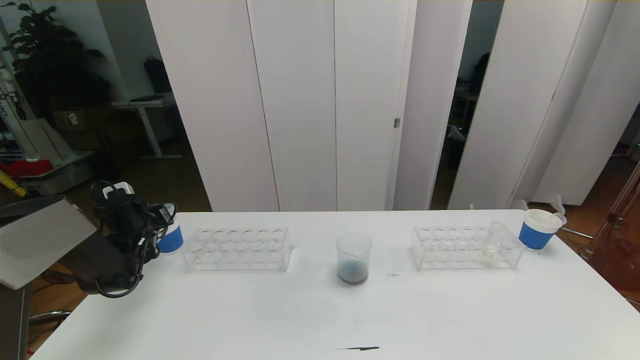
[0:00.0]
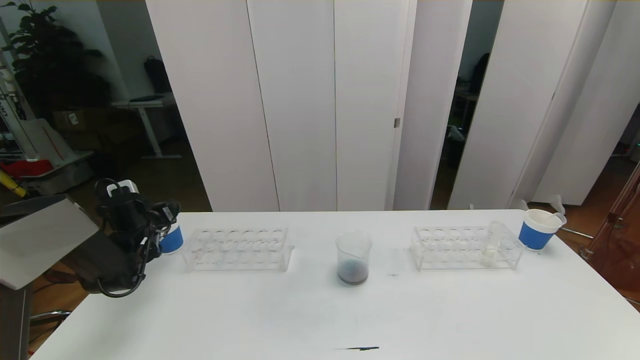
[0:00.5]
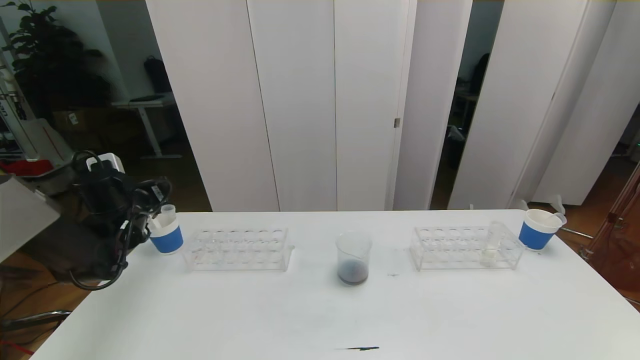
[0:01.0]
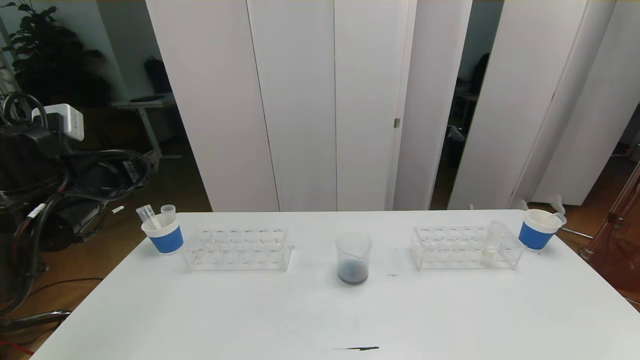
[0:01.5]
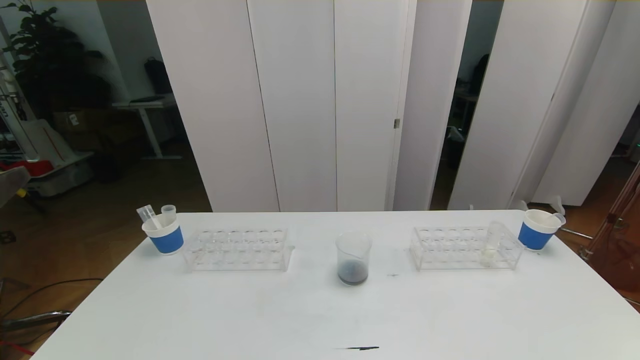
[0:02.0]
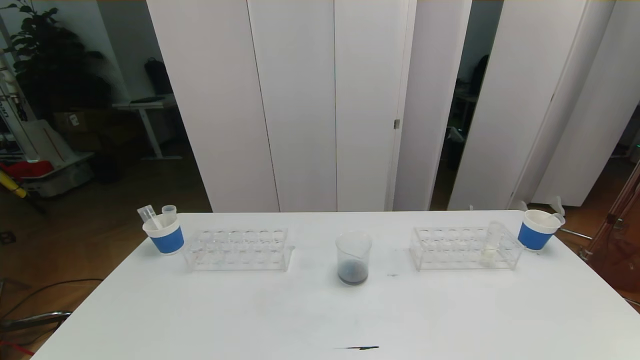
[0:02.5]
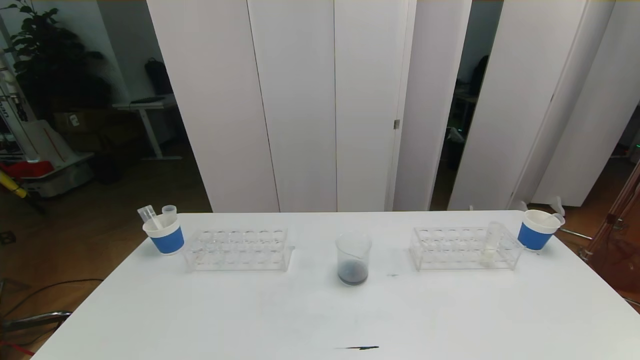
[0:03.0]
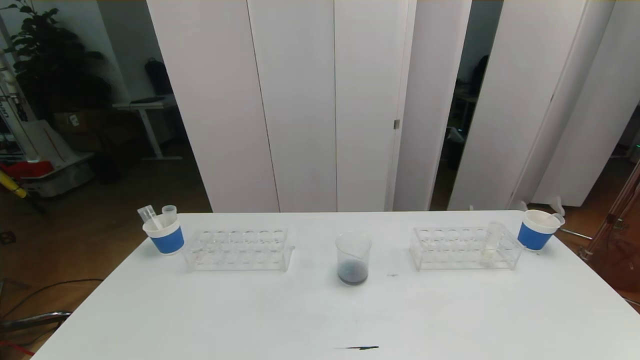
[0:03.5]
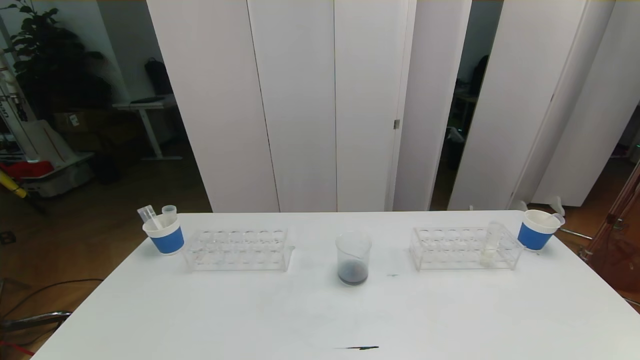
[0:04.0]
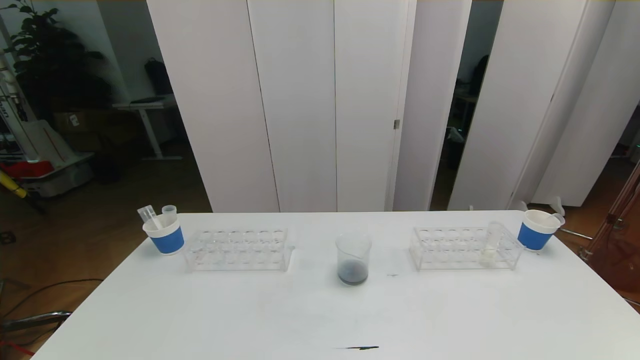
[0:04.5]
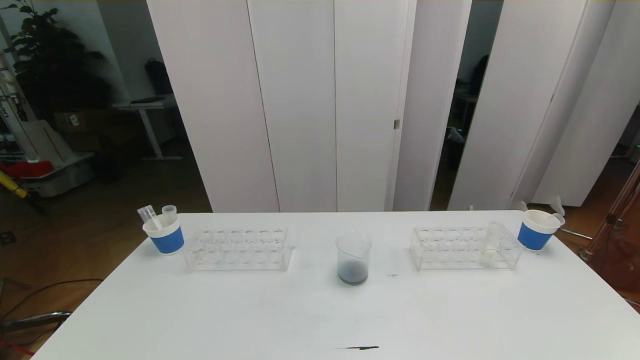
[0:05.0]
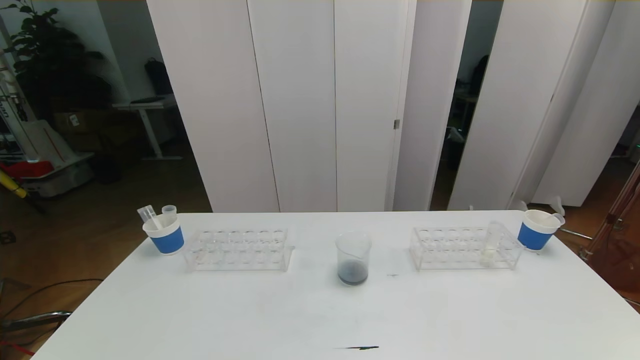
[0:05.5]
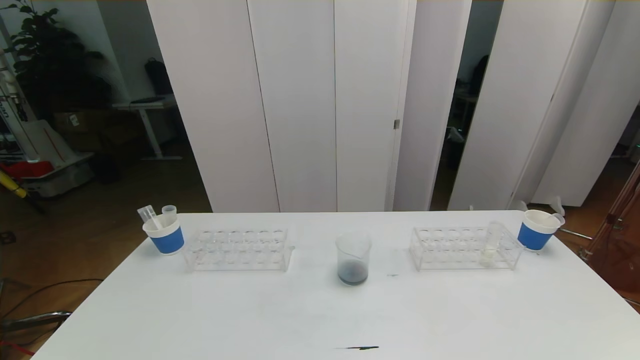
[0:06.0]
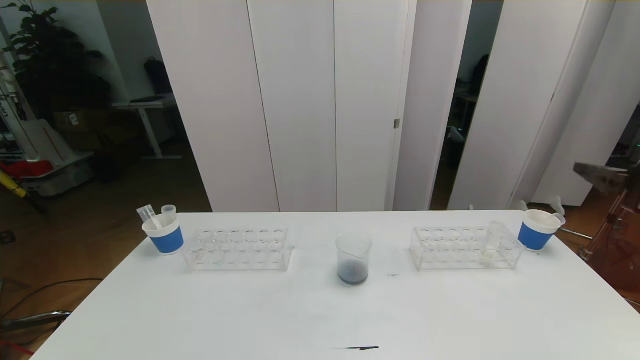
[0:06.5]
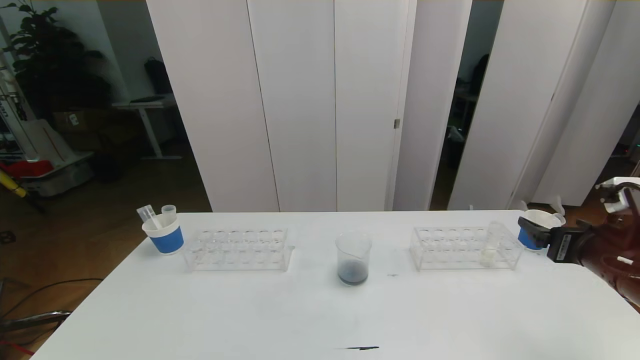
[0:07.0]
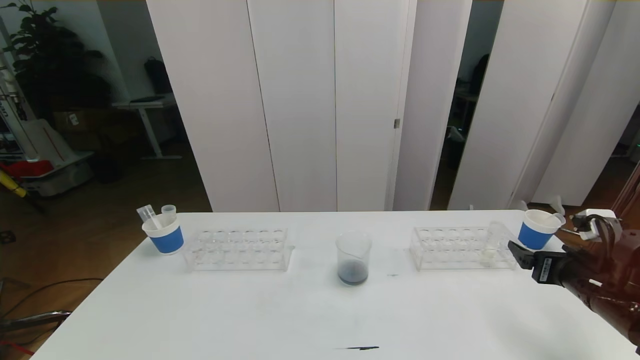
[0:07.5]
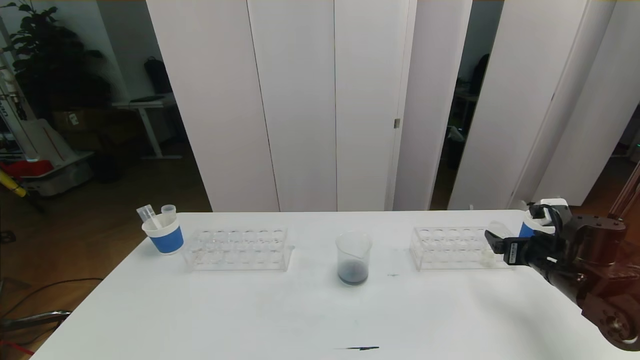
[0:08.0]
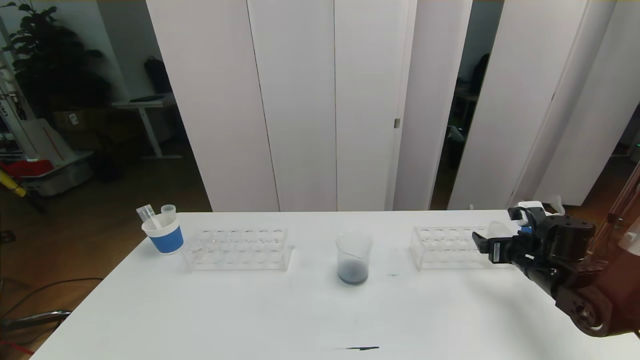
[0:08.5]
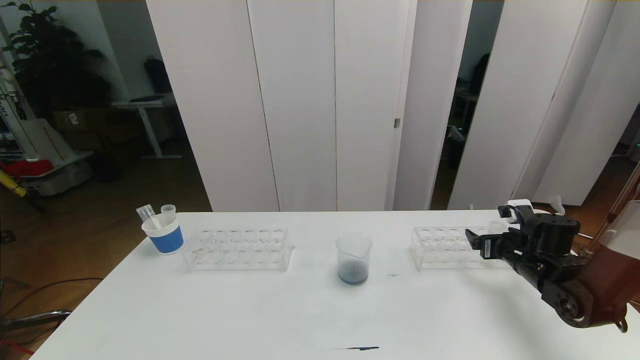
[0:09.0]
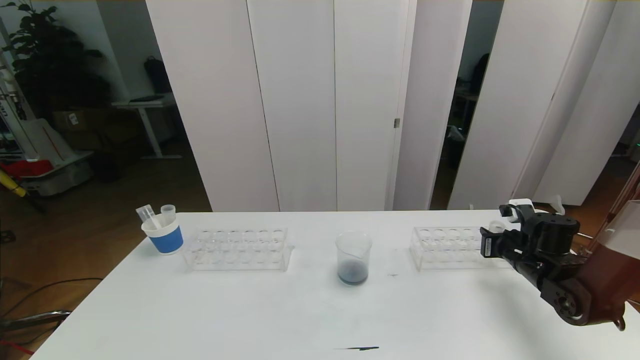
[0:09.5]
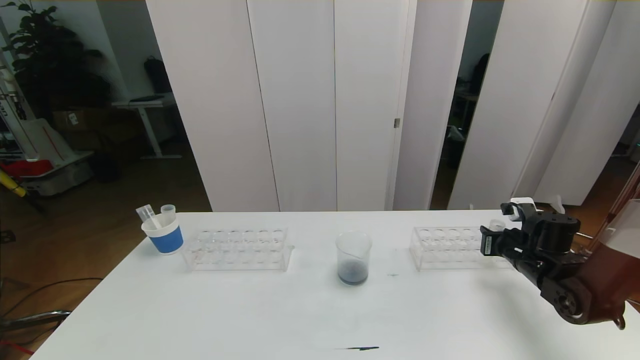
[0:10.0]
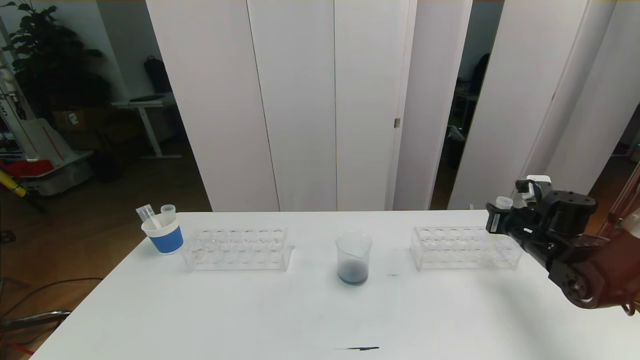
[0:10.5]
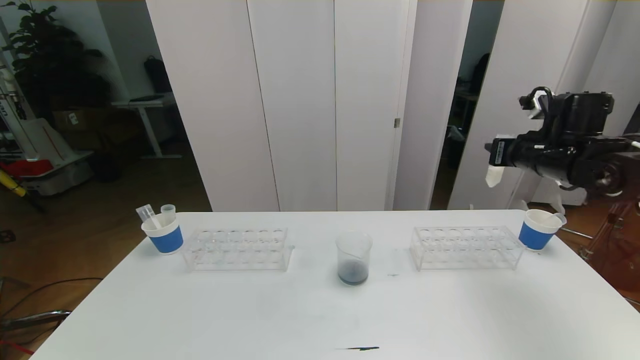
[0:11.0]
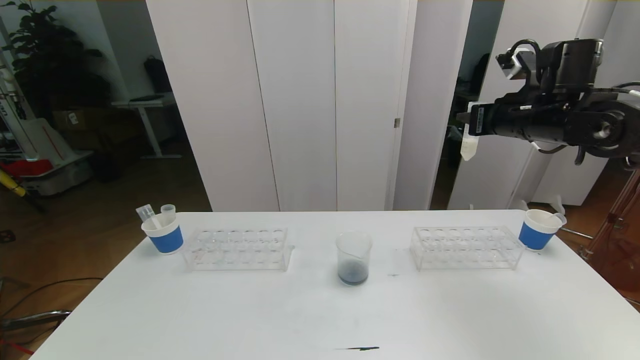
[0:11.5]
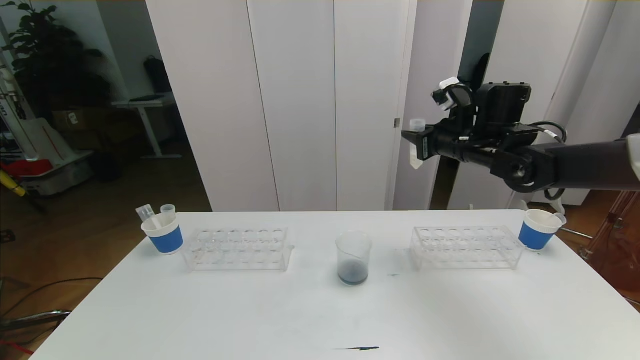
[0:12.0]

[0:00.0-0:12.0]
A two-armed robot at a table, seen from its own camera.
Task of the whole recording: pick up the test tube with red pigment the test tube with blue pigment and the test tube with white pigment by grippers and pour them into the beaker.
Step, 0:00.0 to 0:03.5: Pour the orange reagent into the graduated cylinder and place the test tube into the paper cup.
0:00.0 to 0:02.0: The left gripper is displaced backward and upward by some 40 cm, and opens its fingers.
0:06.0 to 0:08.0: The right gripper moves forward and downward, roughly 35 cm.
0:08.0 to 0:10.0: The right gripper goes about 5 cm forward, and closes.
0:10.0 to 0:12.0: The right gripper shifts about 25 cm upward, to the left and forward.

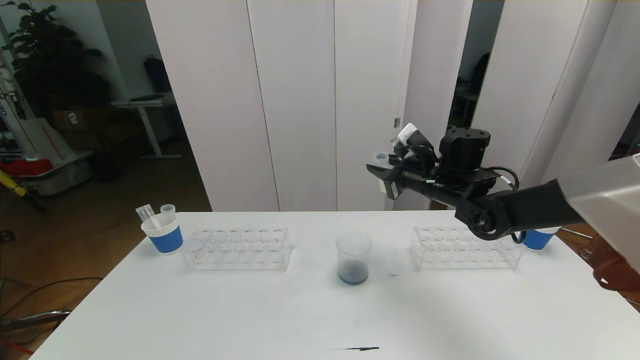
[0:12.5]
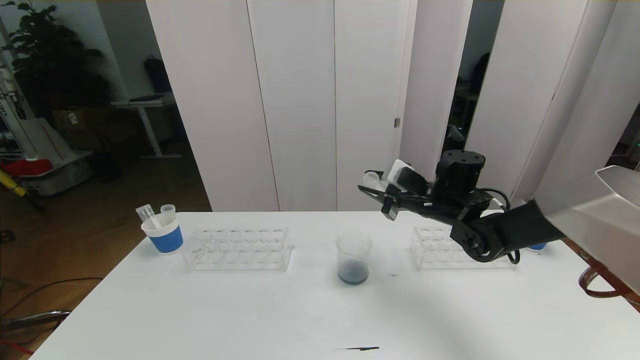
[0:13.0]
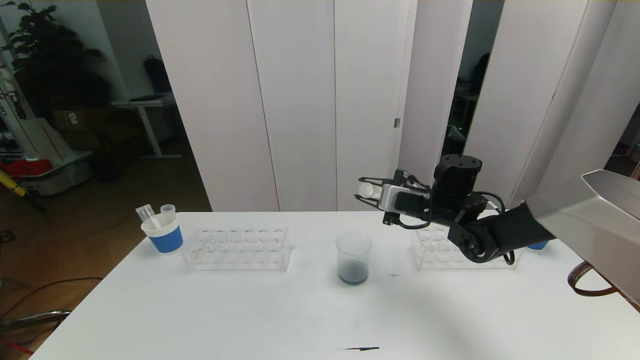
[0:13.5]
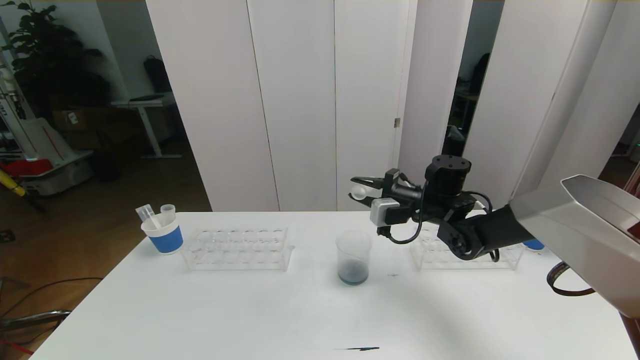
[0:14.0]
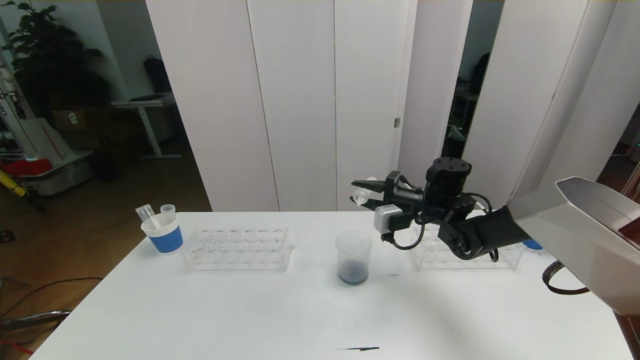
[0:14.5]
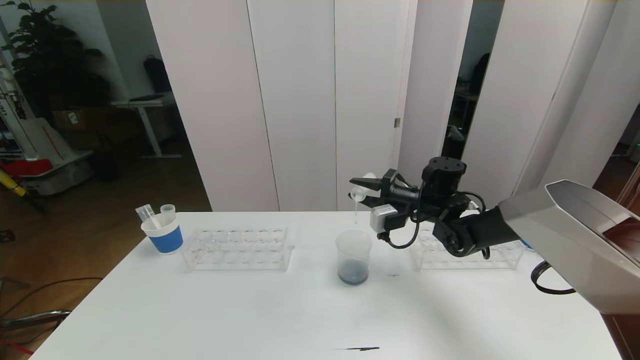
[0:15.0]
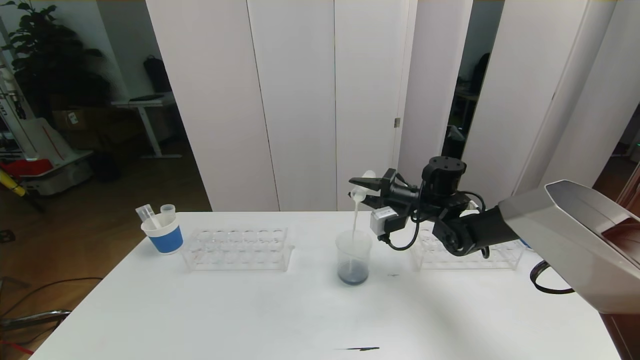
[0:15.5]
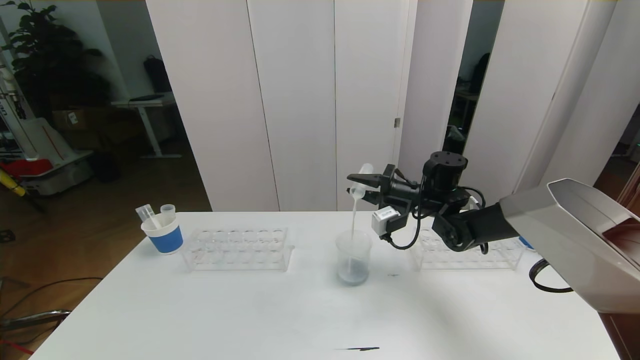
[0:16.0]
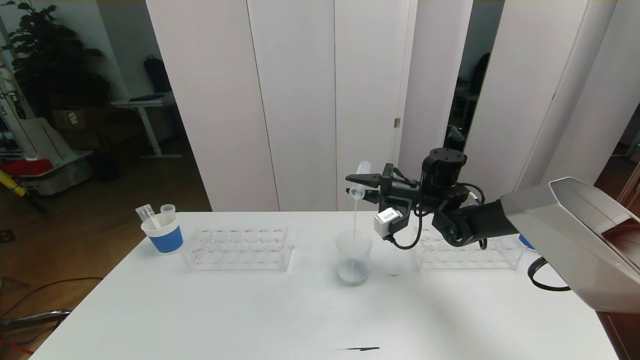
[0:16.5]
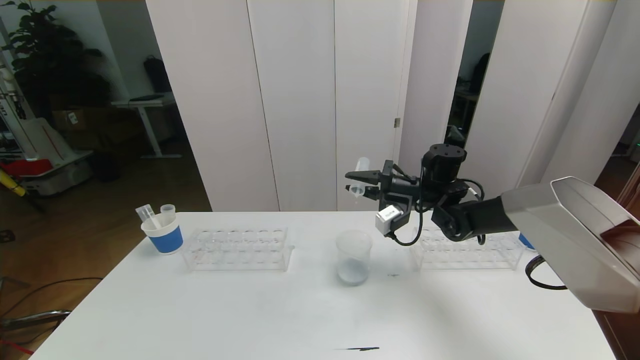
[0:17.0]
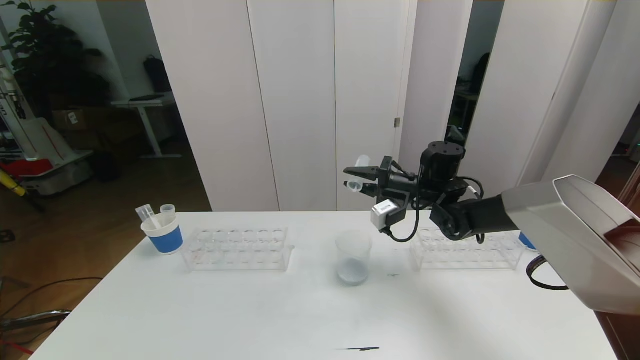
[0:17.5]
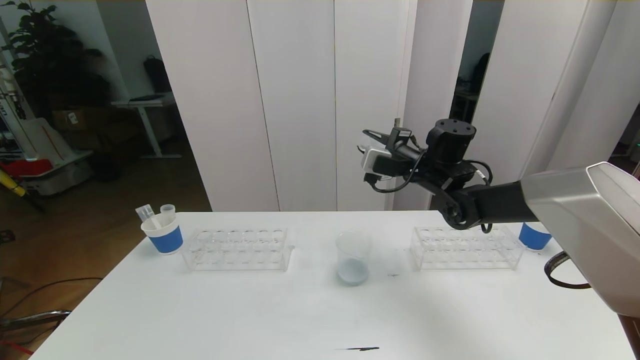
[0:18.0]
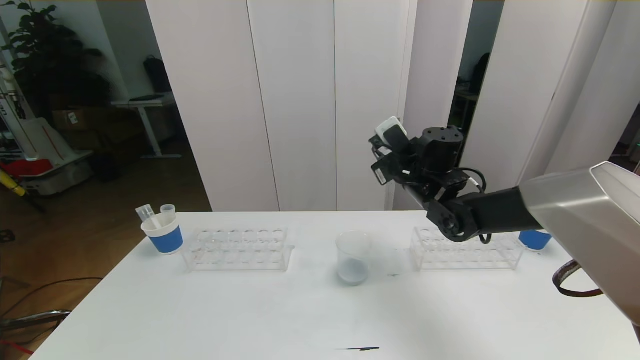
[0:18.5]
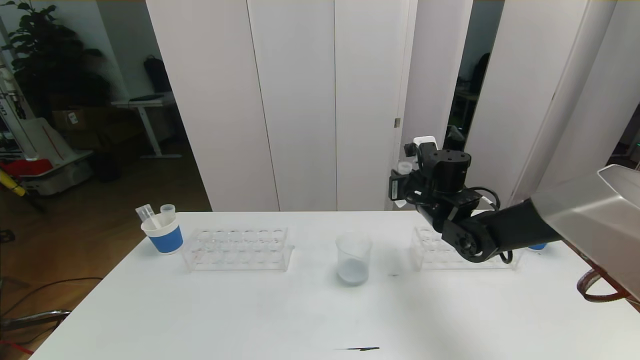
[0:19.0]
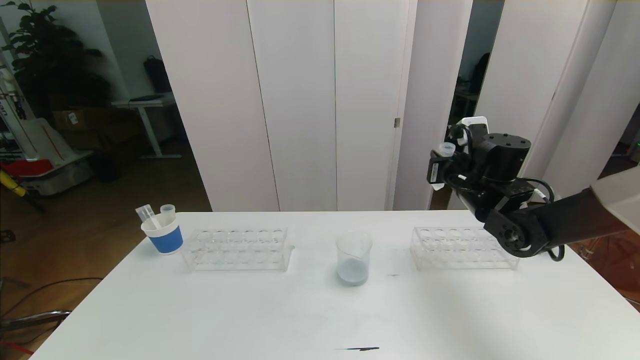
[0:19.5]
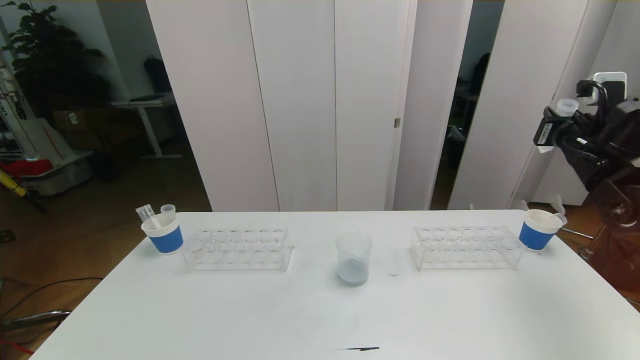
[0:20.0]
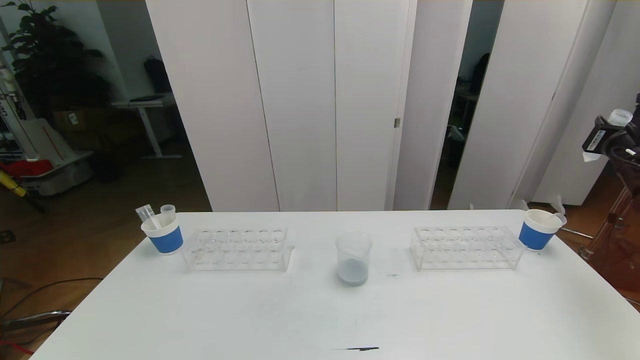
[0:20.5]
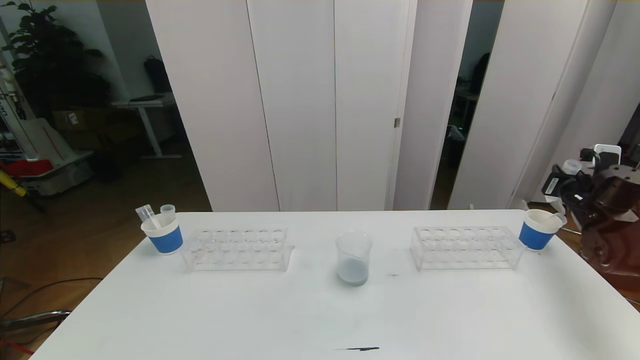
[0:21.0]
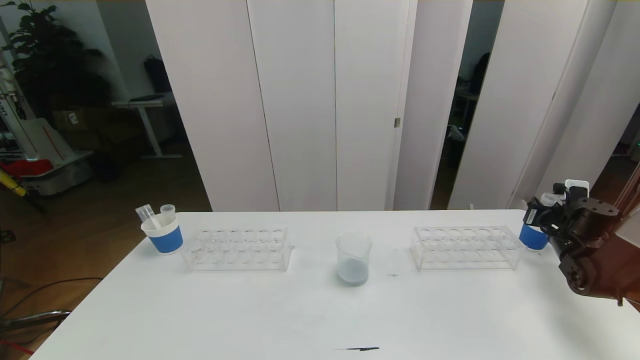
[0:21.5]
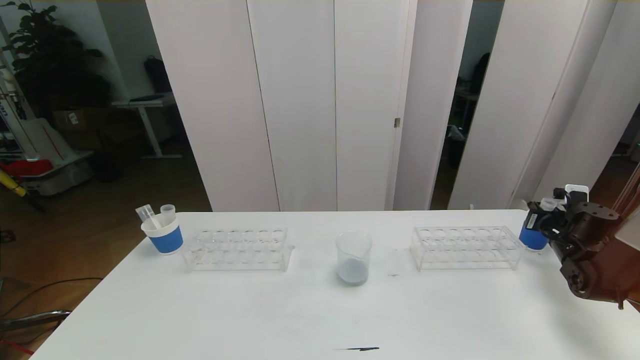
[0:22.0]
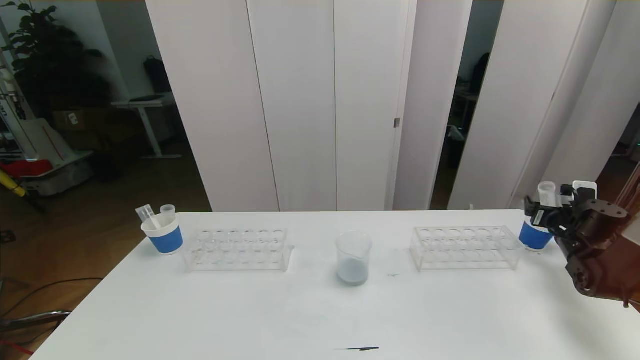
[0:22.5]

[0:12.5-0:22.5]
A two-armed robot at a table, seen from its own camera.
Task of the whole recording: pick up the test tube with red pigment the test tube with blue pigment and the test tube with white pigment by grippers and pour them into the beaker.
0:12.5 to 0:14.5: The right gripper is displaced downward by some 5 cm.
0:16.5 to 0:18.5: The right gripper shifts by roughly 5 cm.
0:18.5 to 0:20.5: The right gripper goes roughly 30 cm to the right.
0:20.5 to 0:22.5: The right gripper shifts about 15 cm downward, and opens up.
